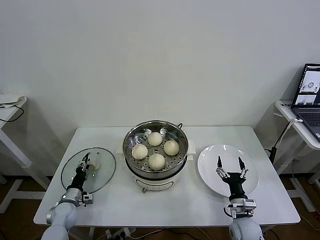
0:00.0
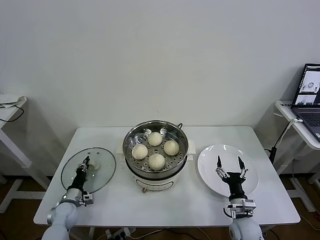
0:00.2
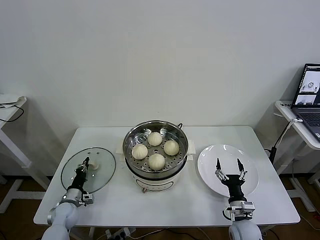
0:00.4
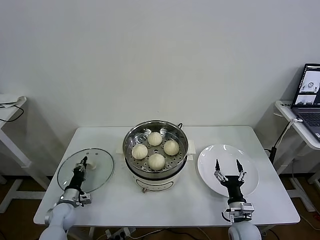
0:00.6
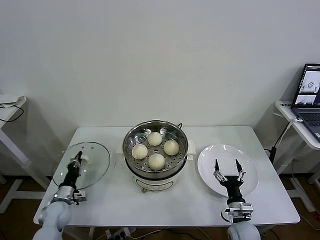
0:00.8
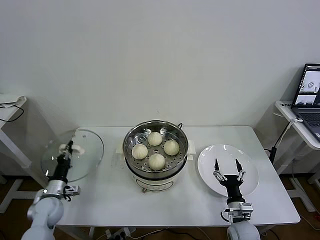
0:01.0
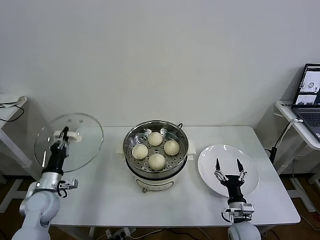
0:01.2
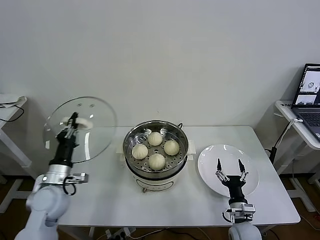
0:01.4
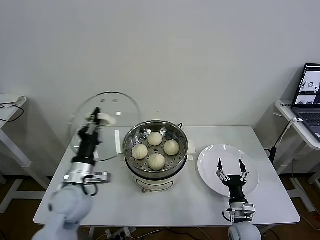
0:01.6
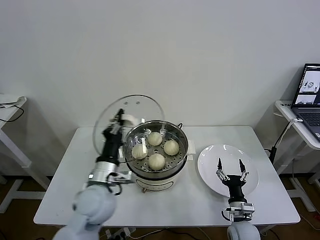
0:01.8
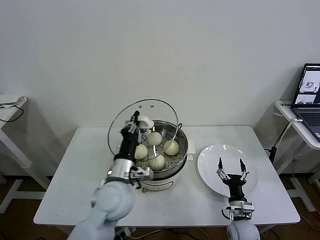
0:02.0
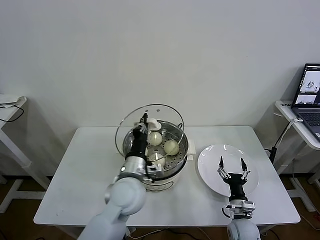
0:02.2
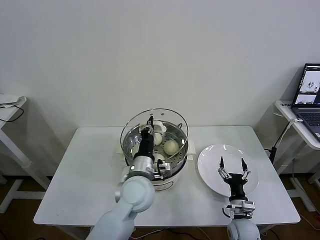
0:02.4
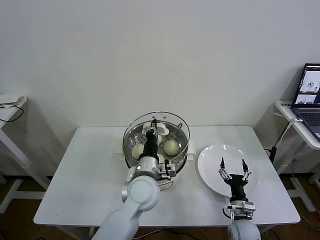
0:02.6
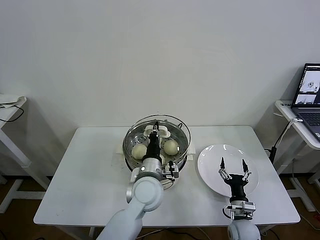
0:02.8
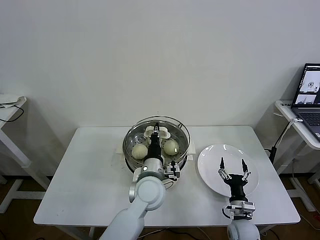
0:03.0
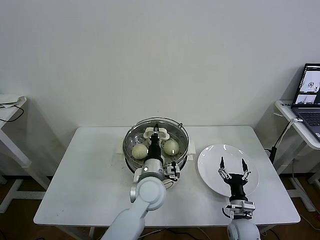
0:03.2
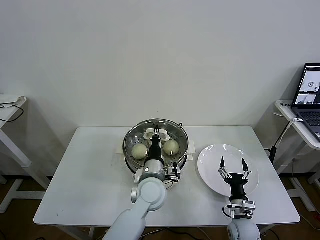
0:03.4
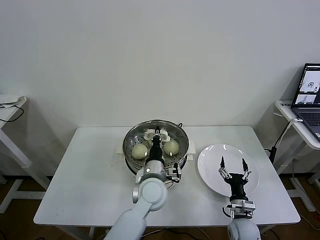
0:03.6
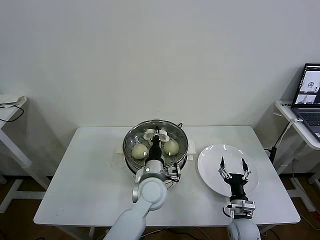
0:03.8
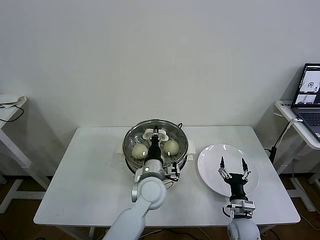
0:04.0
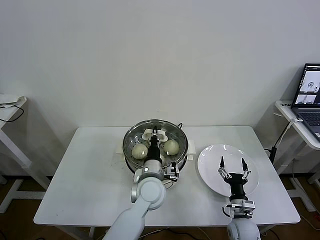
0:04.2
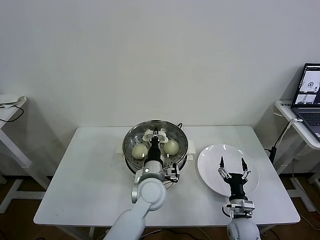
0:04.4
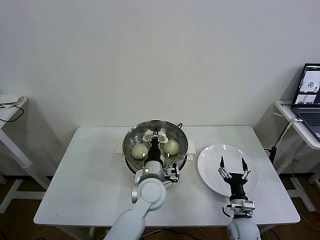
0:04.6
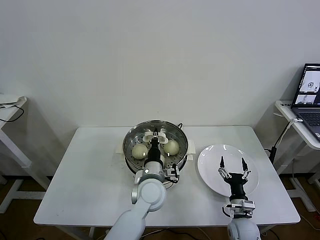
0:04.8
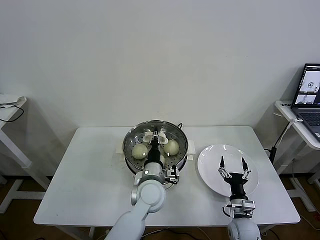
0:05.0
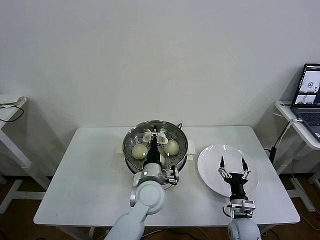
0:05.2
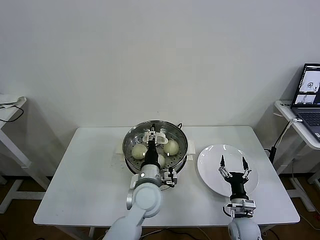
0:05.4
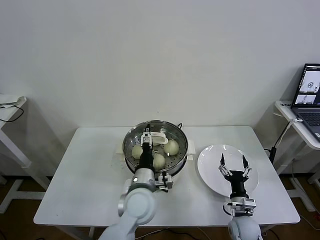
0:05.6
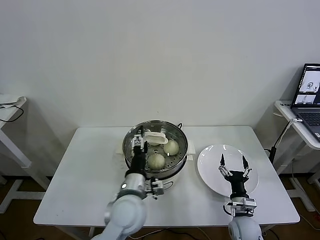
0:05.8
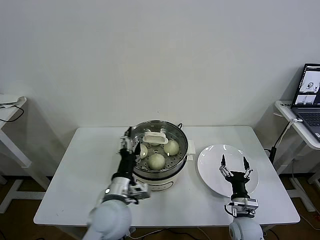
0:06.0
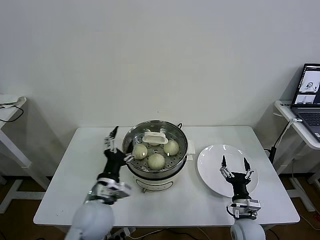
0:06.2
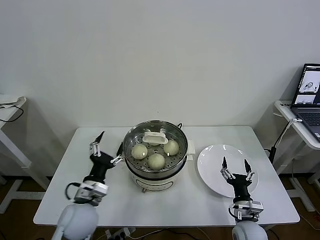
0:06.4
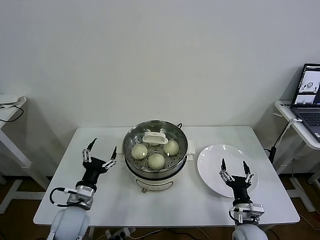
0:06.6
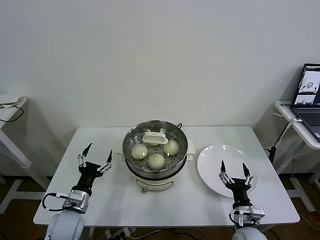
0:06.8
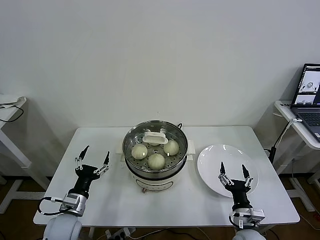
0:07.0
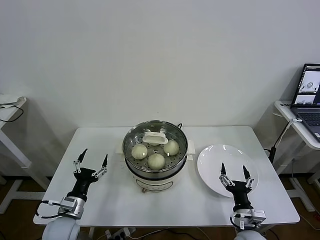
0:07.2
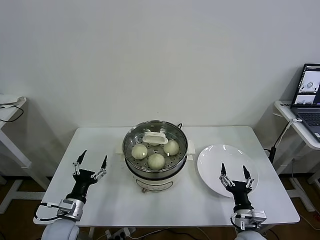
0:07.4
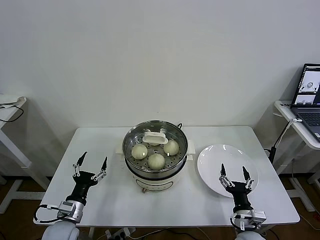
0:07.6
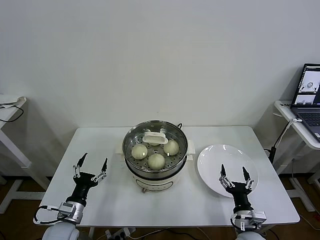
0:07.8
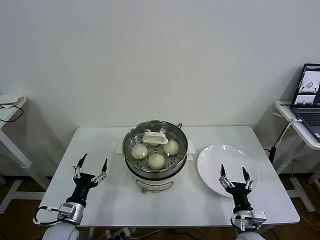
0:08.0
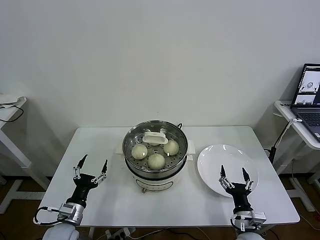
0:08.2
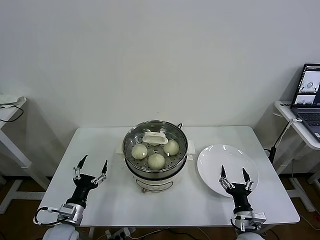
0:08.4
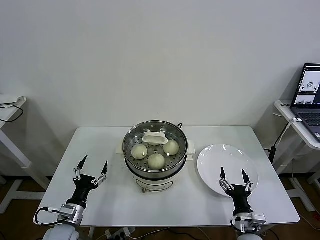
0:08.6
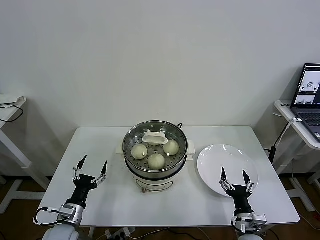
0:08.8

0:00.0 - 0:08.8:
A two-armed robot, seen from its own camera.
Task of the whole recording: take steamed baozi put them in steamer then cover it.
Step, 0:00.6 - 0:05.6: Place the pot lid on the steamer with left gripper.
0:00.0 - 0:01.4: The left gripper travels upward by about 20 cm, and closes up.
0:01.4 - 0:03.0: The left gripper goes approximately 30 cm to the right.
0:03.0 - 0:04.4: The grippers make only small movements.
0:04.4 - 0:05.8: The left gripper goes approximately 5 cm backward, and opens.
0:05.8 - 0:07.4: The left gripper heads to the left and downward, covering about 25 cm. Meanwhile the right gripper shifts approximately 5 cm backward.
0:07.4 - 0:08.8: The grippers stay close to where they were, moving slightly.

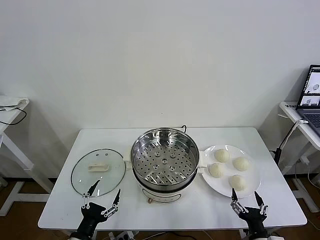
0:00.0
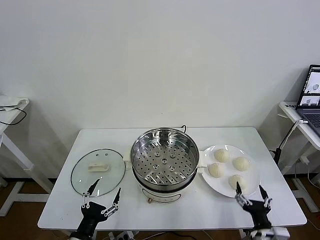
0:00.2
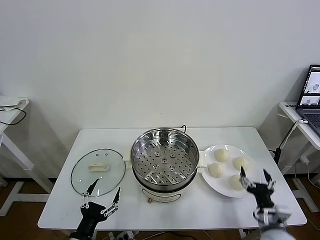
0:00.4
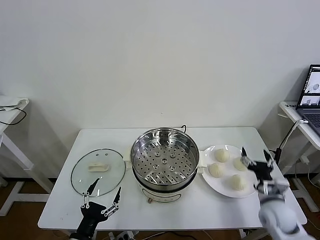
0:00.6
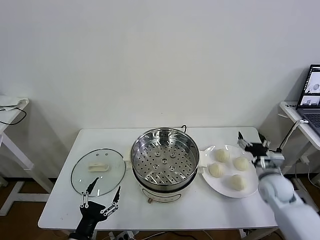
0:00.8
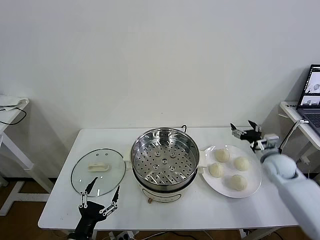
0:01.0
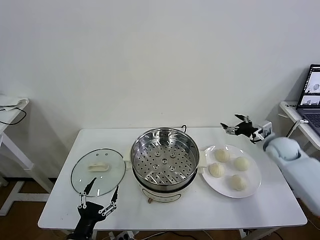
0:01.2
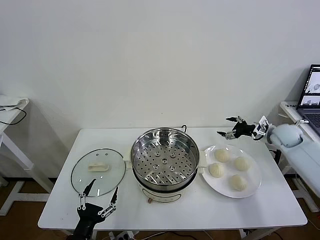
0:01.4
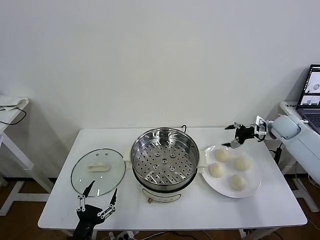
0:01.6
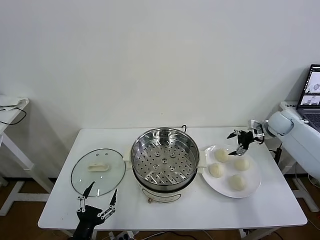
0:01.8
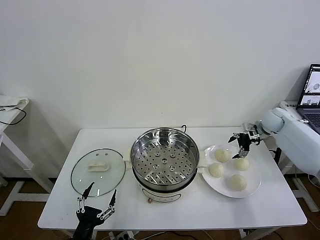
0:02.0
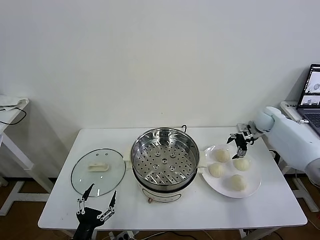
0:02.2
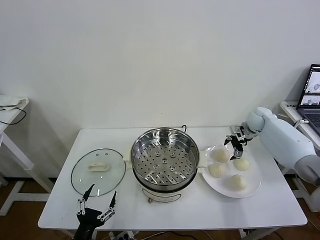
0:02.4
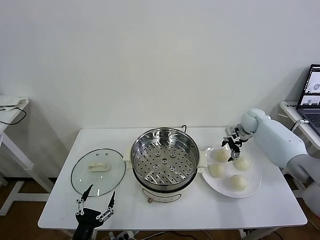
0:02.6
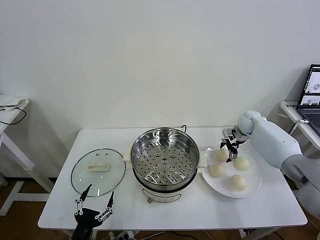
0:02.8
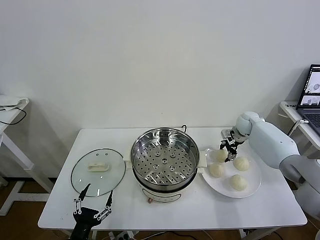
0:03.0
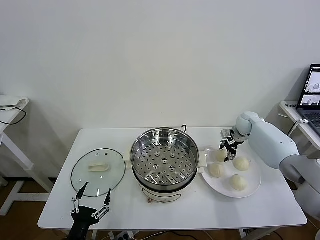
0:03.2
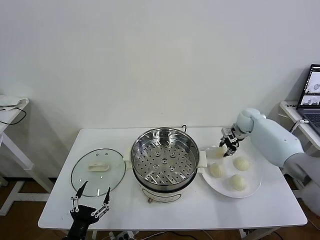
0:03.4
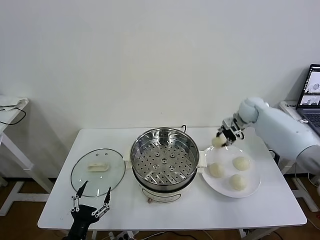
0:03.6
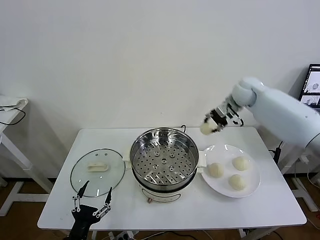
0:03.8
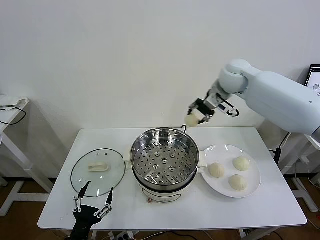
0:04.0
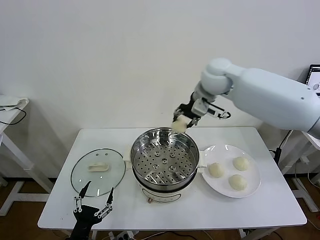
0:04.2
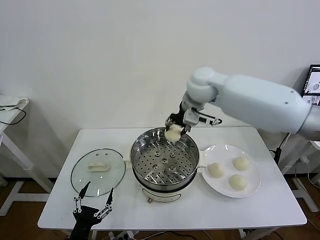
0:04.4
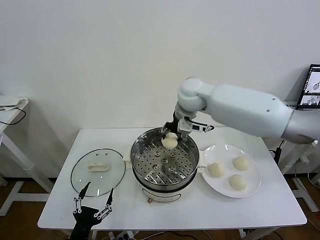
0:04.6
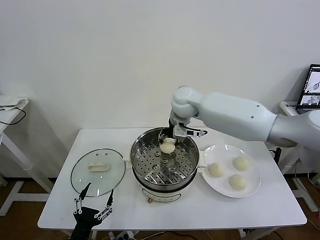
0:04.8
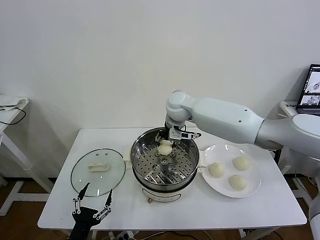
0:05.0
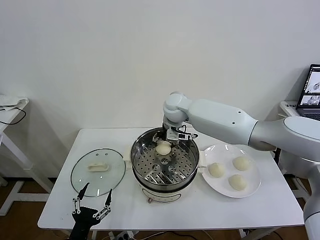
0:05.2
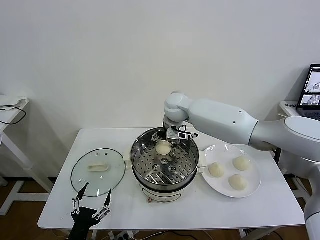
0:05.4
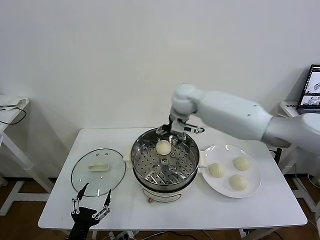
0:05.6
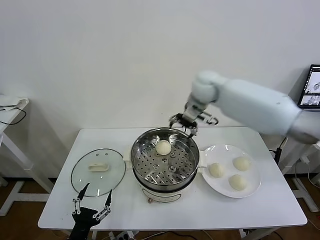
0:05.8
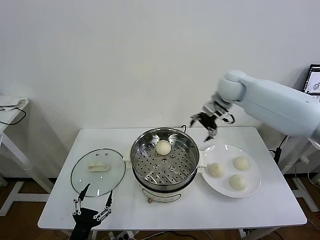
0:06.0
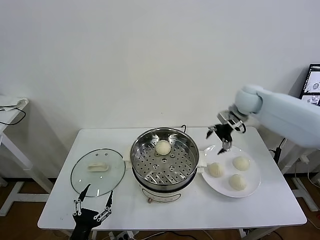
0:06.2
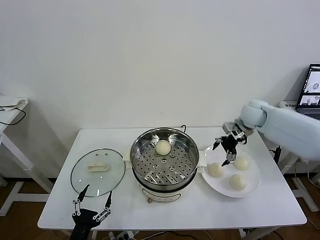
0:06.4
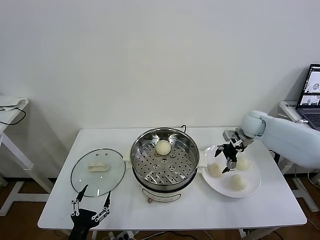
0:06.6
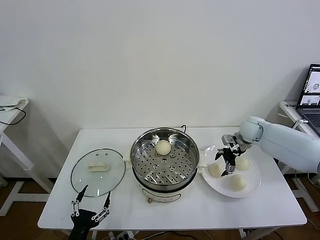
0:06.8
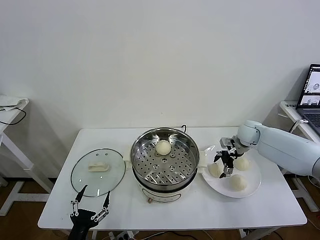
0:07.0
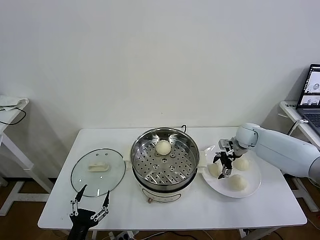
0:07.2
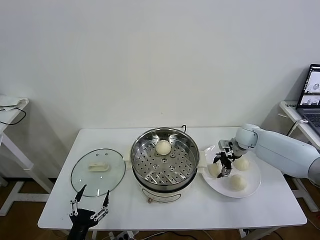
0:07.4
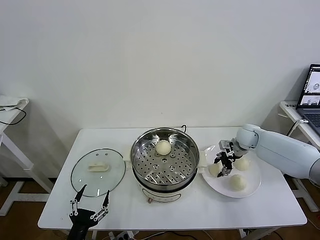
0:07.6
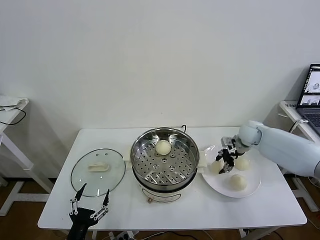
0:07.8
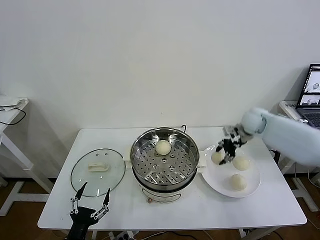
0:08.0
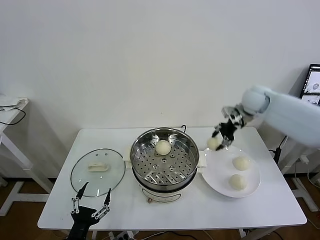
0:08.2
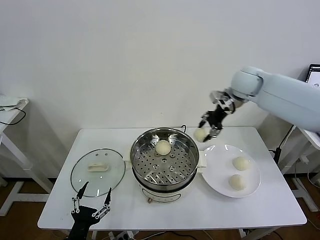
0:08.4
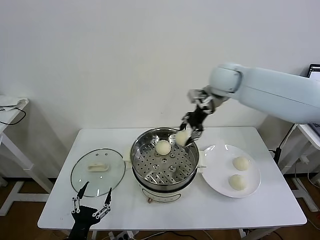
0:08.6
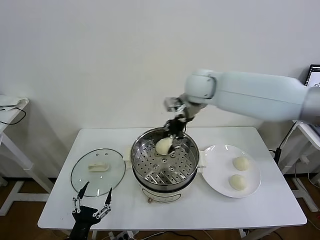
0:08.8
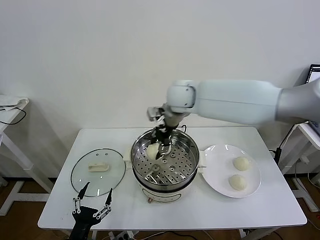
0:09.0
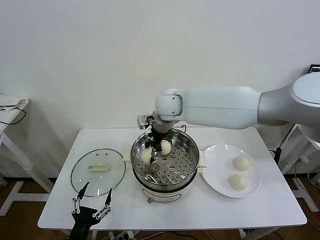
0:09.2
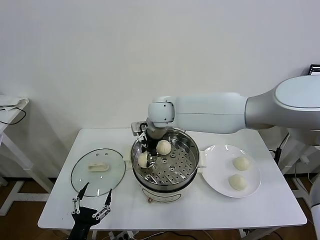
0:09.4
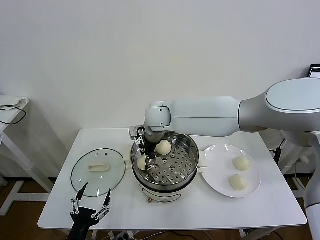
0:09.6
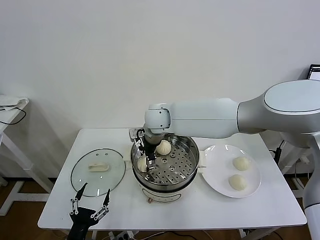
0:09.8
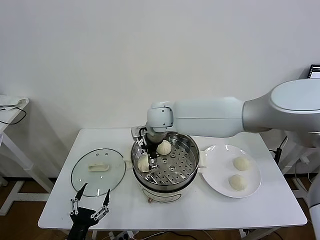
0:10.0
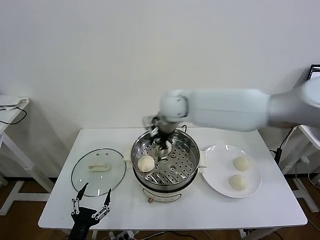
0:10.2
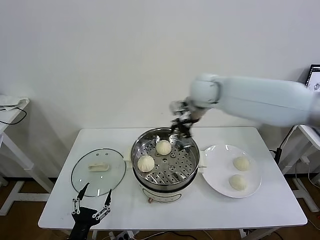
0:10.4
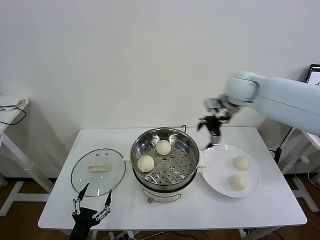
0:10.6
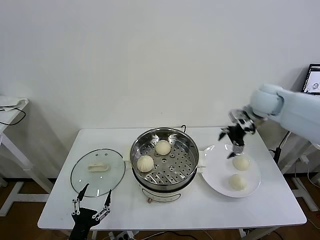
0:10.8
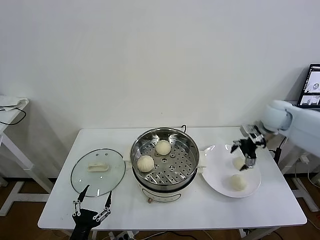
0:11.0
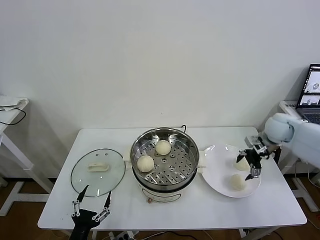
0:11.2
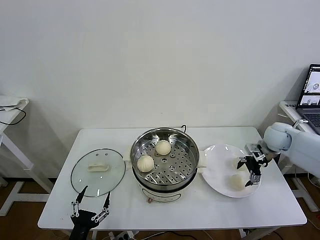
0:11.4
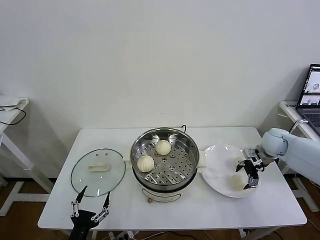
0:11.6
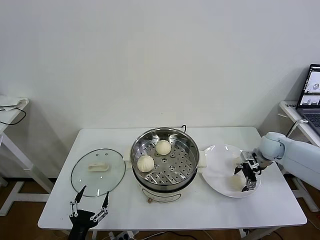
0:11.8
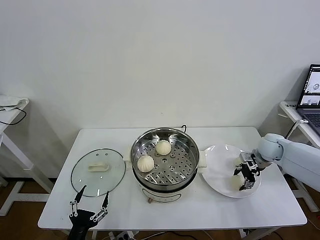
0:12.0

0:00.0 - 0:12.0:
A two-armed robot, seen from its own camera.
Task of the whole recording: take steamed baozi put them in steamer then cover it.
Step, 0:00.0 - 0:03.2: Grasp the baozi in the plate with right gripper.
Step, 0:03.6 - 0:05.4: Place the baozi on the steamer with right gripper.
Step, 0:05.6 - 0:07.8: Grasp the baozi in the plate with right gripper.
Step, 0:08.0 - 0:10.0: Place the baozi on the steamer with right gripper.
0:01.6 - 0:03.0: The right gripper shifts approximately 15 cm to the left, forward and downward, and closes.
0:03.0 - 0:04.4: The right gripper heads to the left and upward, covering some 35 cm.
0:04.4 - 0:06.0: The right gripper travels to the right by some 15 cm, and opens.
0:06.0 - 0:07.6: The right gripper is displaced downward and to the right by some 20 cm, and closes up.
0:07.6 - 0:09.0: The right gripper shifts roughly 35 cm to the left and upward.
0:09.0 - 0:10.4: The right gripper moves to the right, roughly 10 cm, and opens its fingers.
0:10.4 - 0:12.0: The right gripper goes approximately 35 cm to the right and downward, and closes.

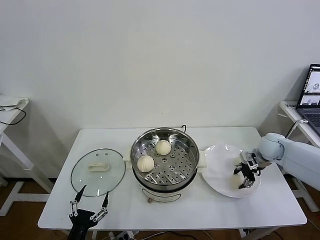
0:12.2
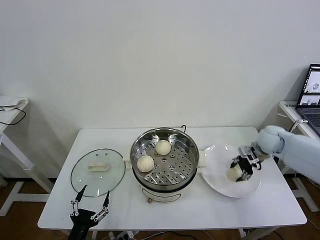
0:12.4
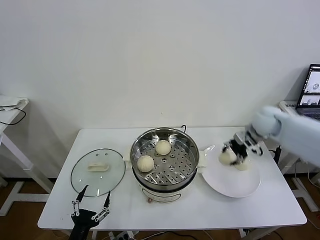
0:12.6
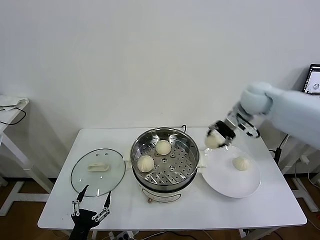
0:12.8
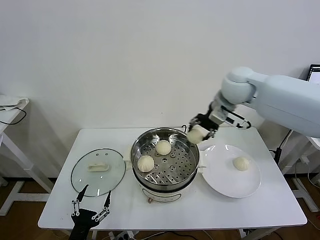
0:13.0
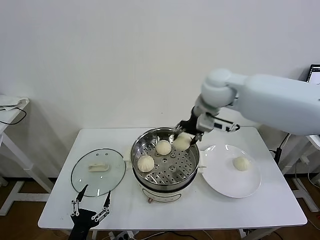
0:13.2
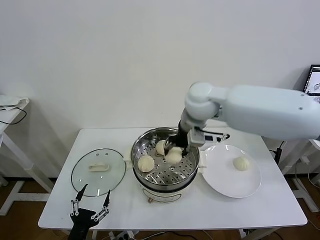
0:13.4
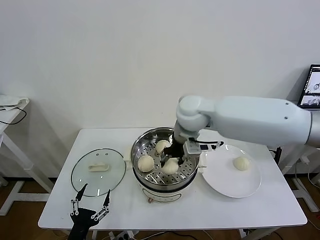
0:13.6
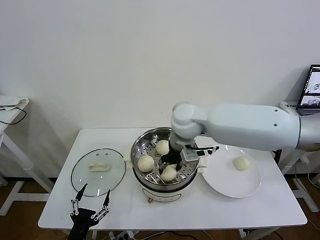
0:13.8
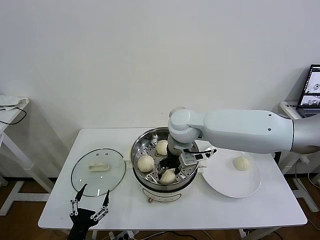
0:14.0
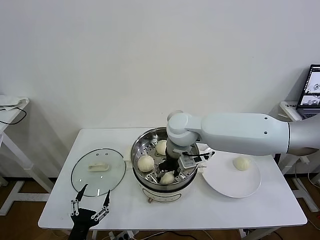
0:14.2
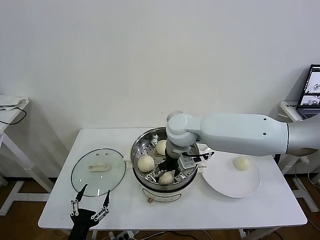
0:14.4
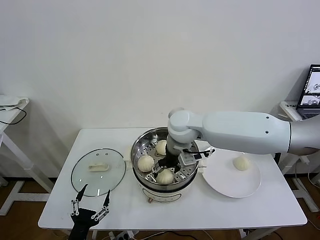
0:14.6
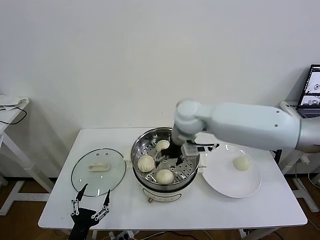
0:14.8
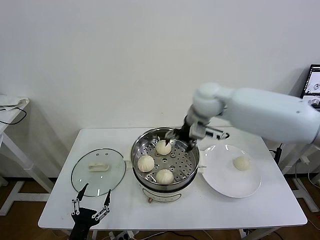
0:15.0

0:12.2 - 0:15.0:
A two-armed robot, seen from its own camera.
Task of the whole recording: take steamed baozi put them in steamer then cover it.
Step, 0:12.4 - 0:14.6: Place the baozi on the steamer with right gripper.
0:12.2 - 0:13.6: The right gripper travels to the left and upward by some 35 cm.
0:13.6 - 0:15.0: The right gripper travels to the right by about 5 cm, and opens its fingers.
